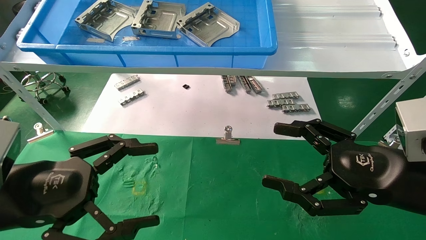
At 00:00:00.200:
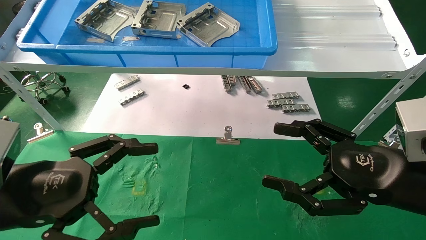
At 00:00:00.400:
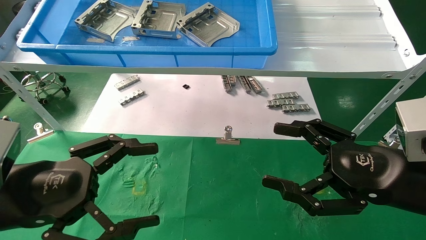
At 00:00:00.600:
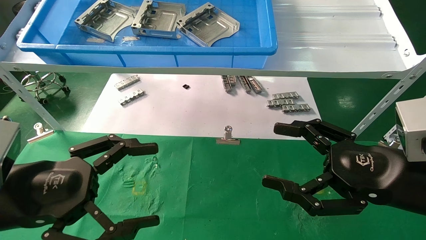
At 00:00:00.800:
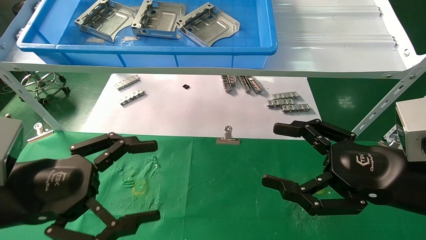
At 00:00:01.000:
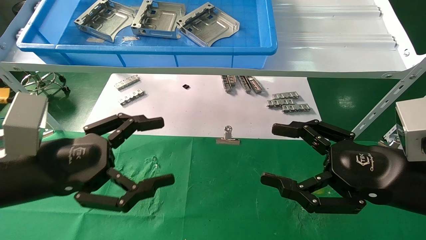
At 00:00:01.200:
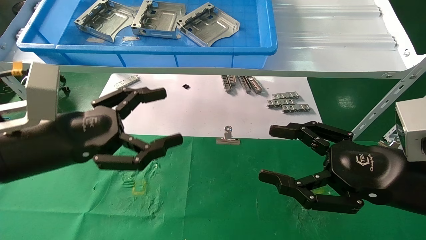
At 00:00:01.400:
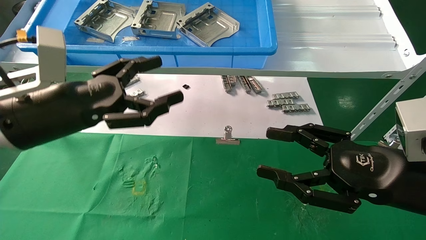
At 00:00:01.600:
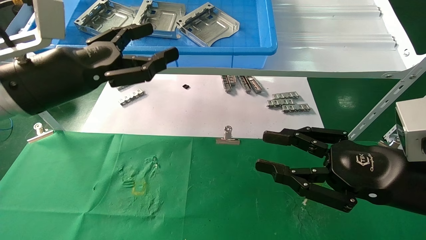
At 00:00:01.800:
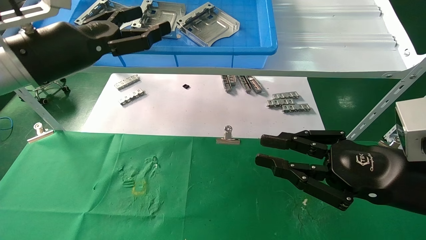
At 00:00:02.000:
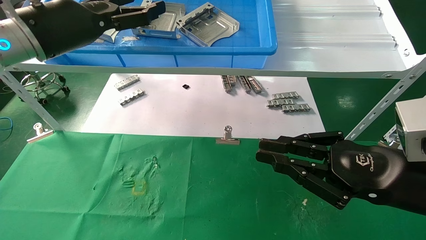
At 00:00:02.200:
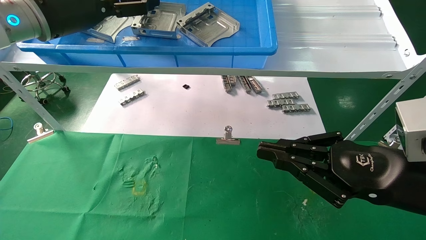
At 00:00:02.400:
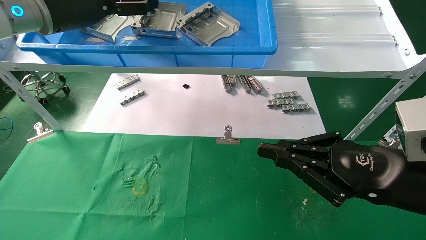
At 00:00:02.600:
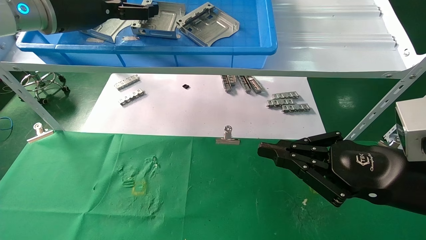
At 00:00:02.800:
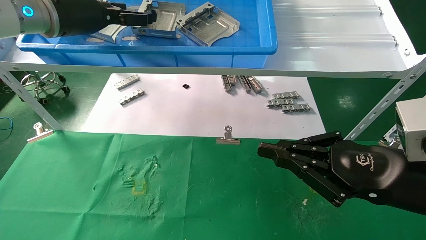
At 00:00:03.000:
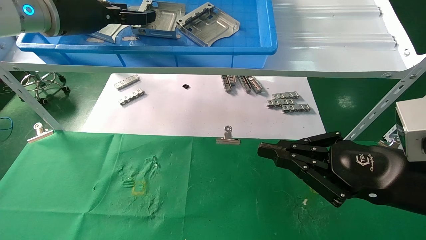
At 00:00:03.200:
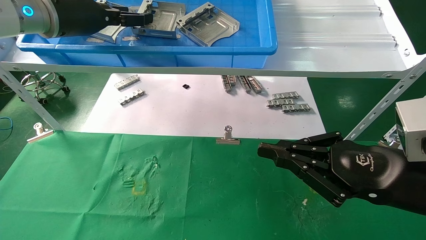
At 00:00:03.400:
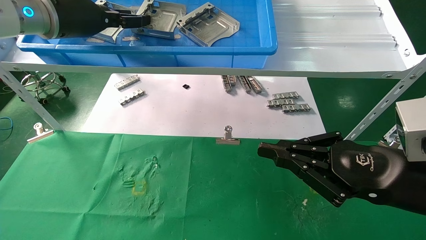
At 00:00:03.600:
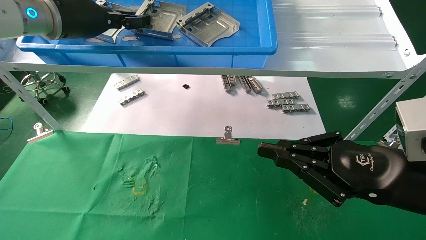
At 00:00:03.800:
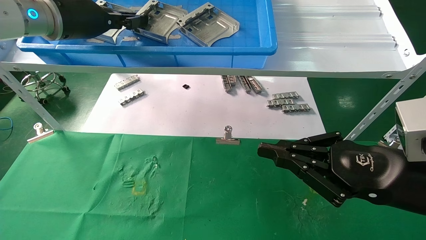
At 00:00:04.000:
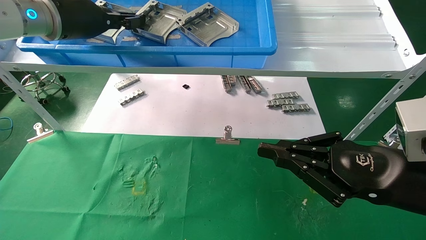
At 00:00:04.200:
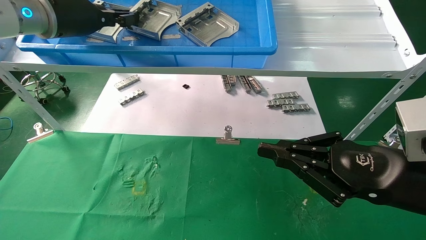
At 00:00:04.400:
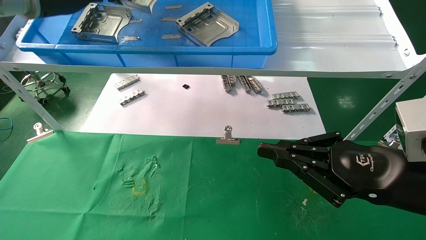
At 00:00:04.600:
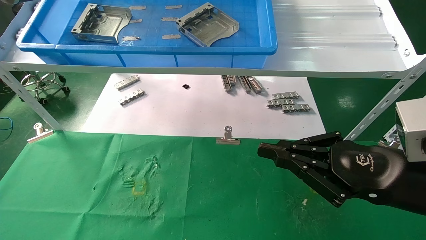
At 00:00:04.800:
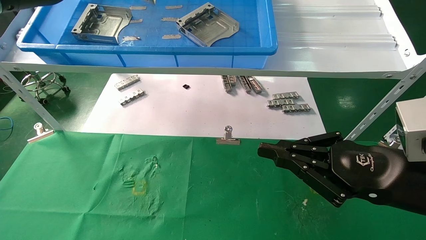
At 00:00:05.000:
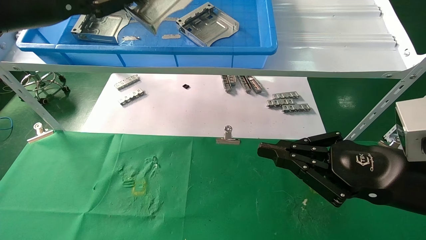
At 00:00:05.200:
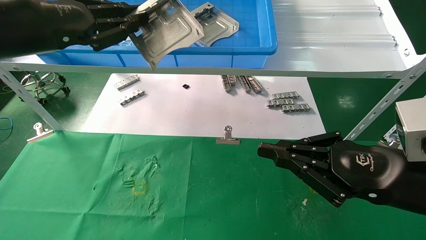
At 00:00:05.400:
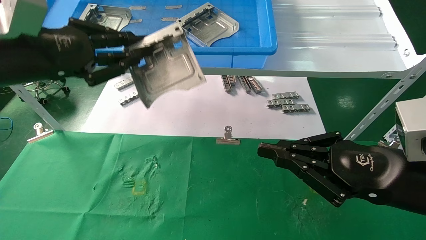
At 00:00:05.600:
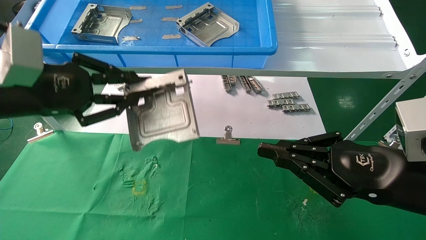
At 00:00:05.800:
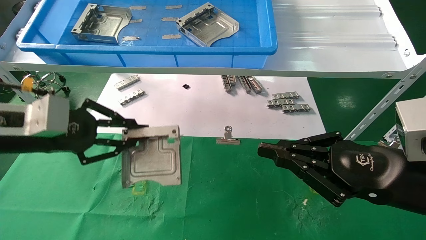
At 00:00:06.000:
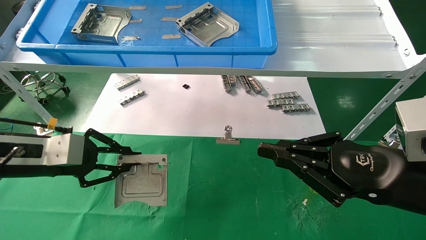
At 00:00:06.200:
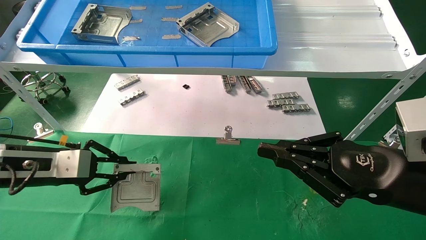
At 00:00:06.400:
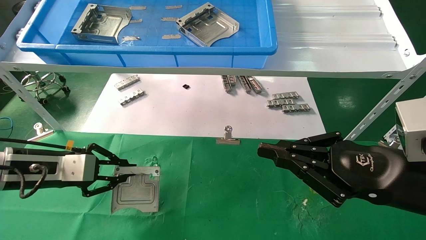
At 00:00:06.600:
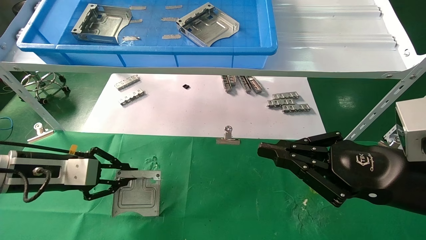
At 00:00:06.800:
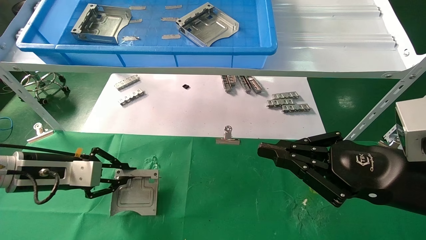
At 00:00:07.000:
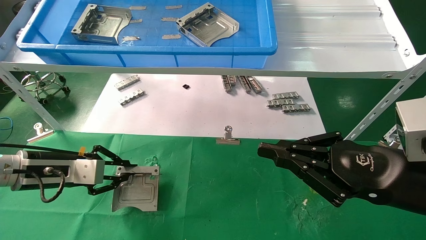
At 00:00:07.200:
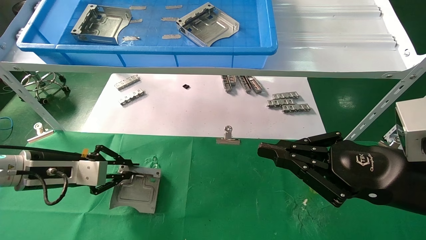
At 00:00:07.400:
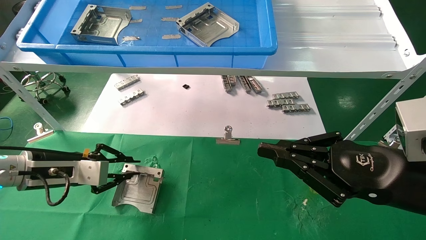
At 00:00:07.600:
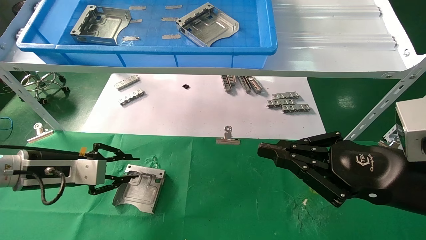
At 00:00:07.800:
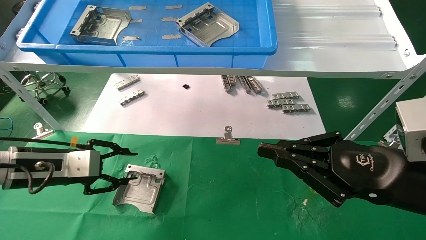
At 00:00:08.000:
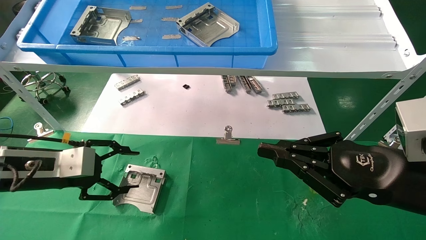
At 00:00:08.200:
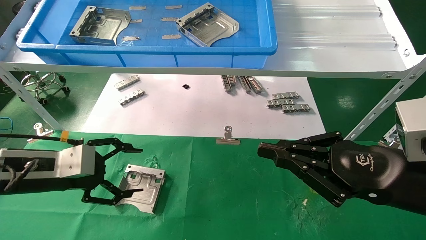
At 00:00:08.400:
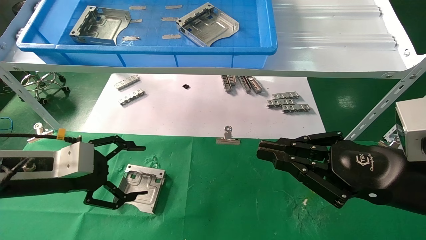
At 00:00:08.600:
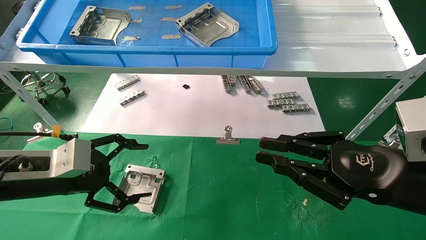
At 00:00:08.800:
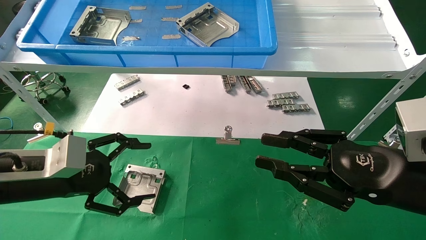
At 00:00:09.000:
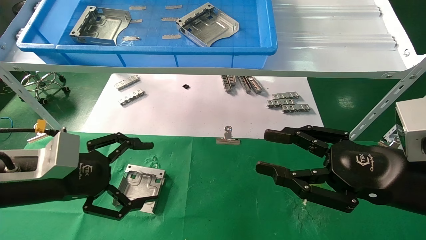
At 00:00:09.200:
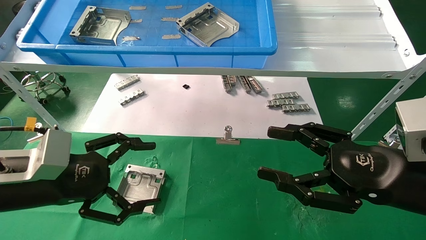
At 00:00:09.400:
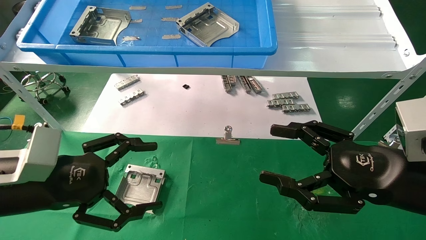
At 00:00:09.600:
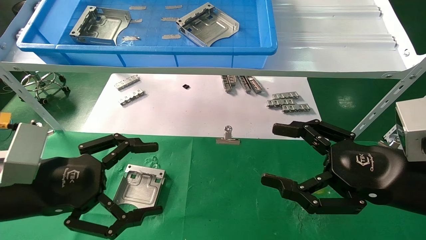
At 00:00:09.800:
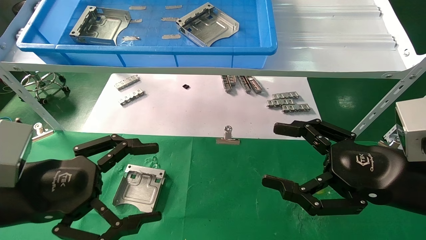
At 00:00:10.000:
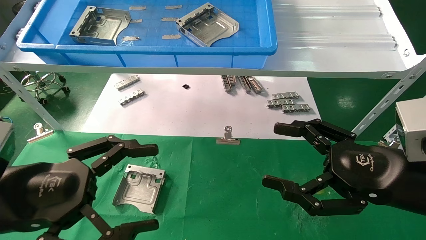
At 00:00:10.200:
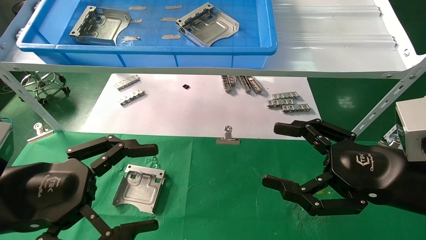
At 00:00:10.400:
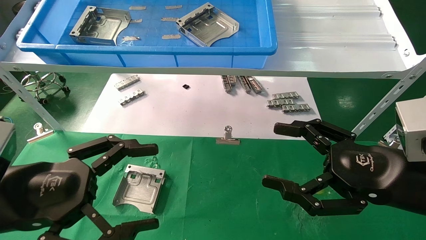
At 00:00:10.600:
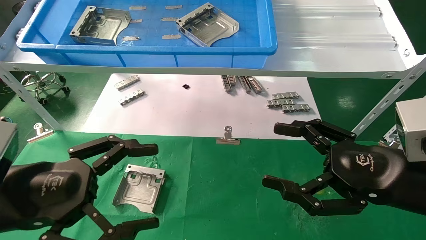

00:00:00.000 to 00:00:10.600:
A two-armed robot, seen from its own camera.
Task of the whole recording: use the mechanical arm to pick up the parts and place them on the table.
Step, 00:00:01.200 to 00:00:04.000: Pick up the hard drive bracket from the feeding area.
Step, 00:00:04.200 to 00:00:07.400: Place the hard drive bracket into the box.
00:00:00.000 to 00:00:01.600: The left gripper moves forward and upward, approximately 15 cm. Meanwhile the right gripper closes its fingers.
00:00:01.600 to 00:00:03.000: The left gripper goes some 15 cm upward and forward, while the right gripper closes up.
00:00:03.000 to 00:00:04.600: The left gripper ends up approximately 5 cm from where it was, and closes its fingers.
00:00:04.600 to 00:00:06.000: The left gripper is displaced downward by about 25 cm.
00:00:06.000 to 00:00:07.600: The left gripper travels downward by some 5 cm.
00:00:07.600 to 00:00:09.000: The left gripper heads backward, covering approximately 10 cm, and opens its fingers, while the right gripper opens its fingers.
00:00:09.000 to 00:00:10.600: The left gripper moves backward, some 5 cm. Meanwhile the right gripper opens its fingers.
